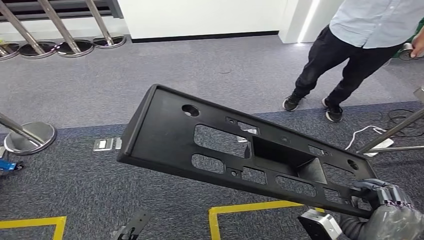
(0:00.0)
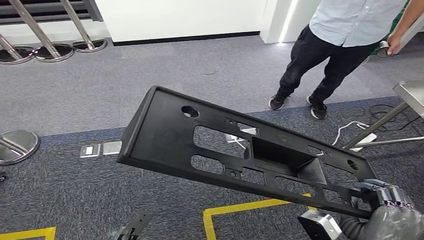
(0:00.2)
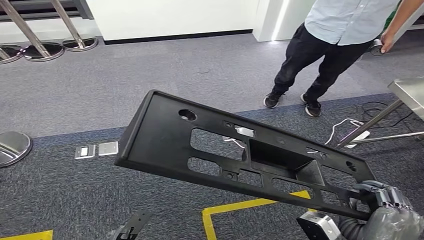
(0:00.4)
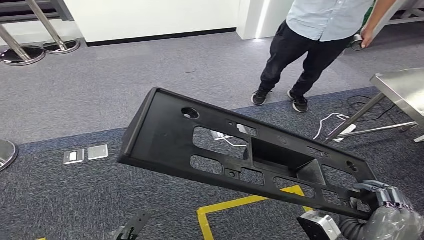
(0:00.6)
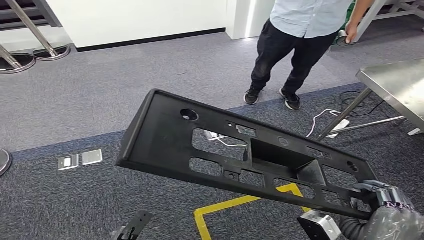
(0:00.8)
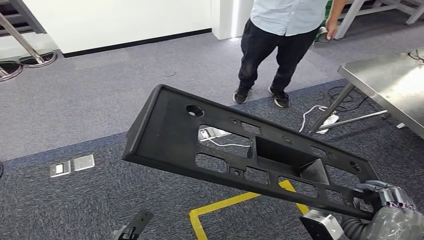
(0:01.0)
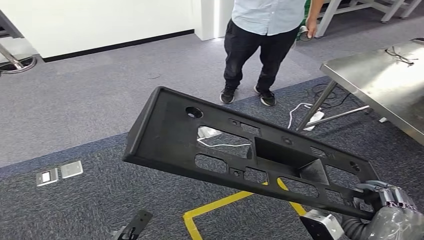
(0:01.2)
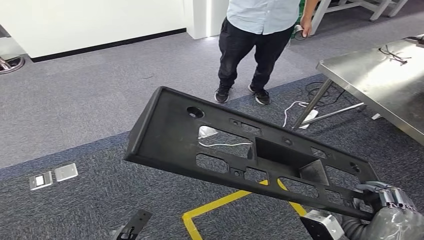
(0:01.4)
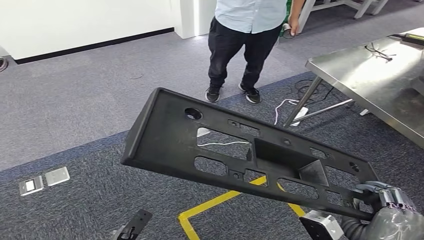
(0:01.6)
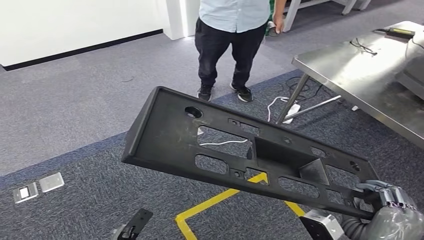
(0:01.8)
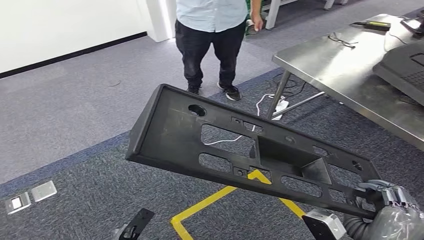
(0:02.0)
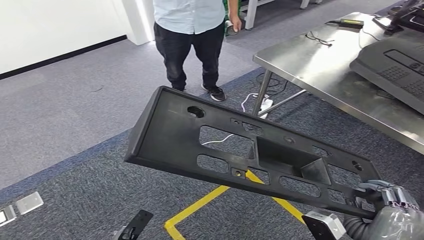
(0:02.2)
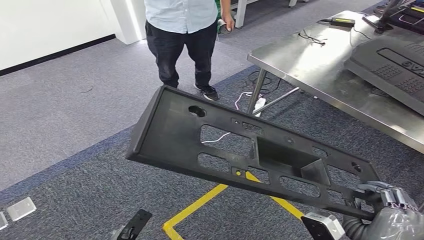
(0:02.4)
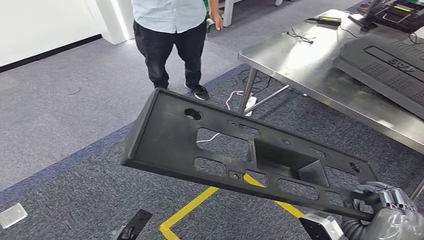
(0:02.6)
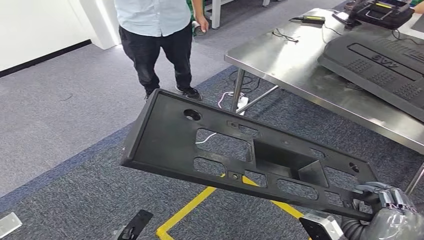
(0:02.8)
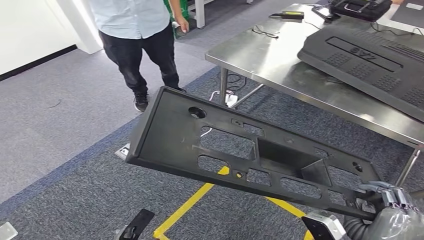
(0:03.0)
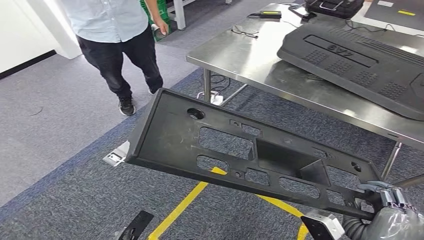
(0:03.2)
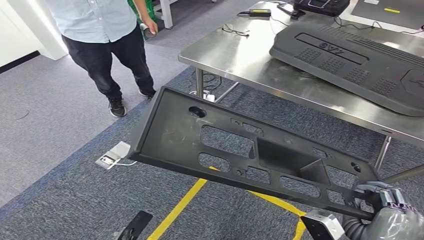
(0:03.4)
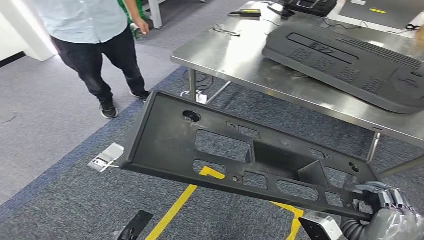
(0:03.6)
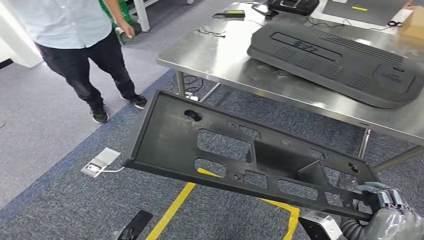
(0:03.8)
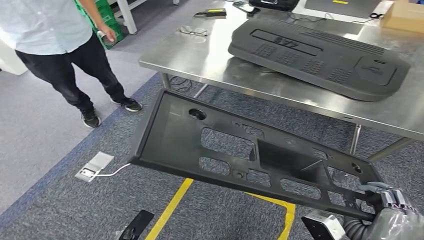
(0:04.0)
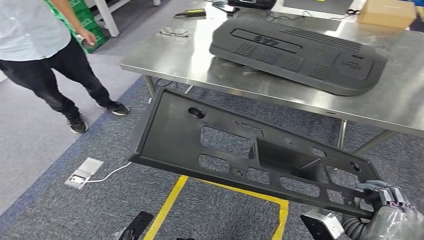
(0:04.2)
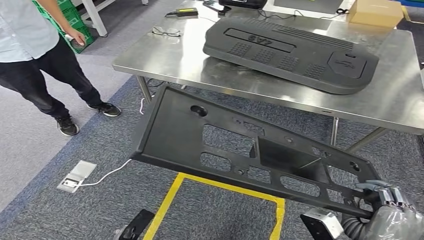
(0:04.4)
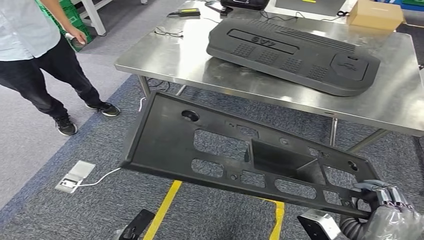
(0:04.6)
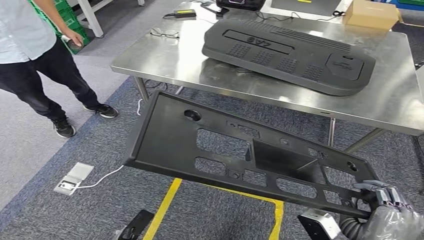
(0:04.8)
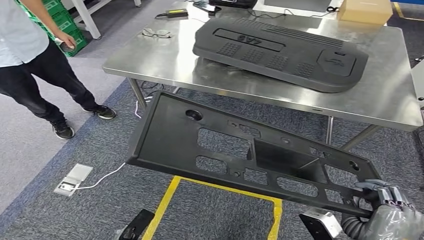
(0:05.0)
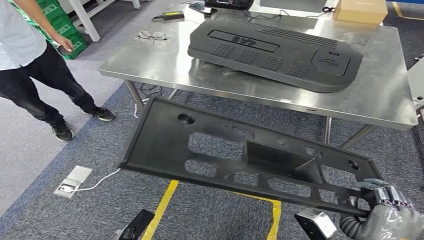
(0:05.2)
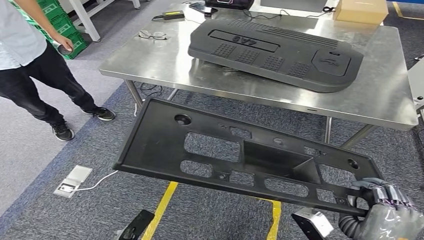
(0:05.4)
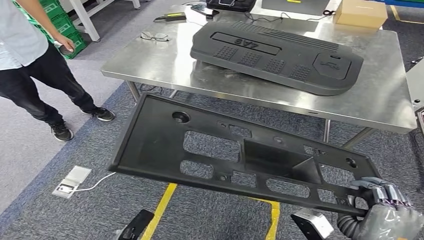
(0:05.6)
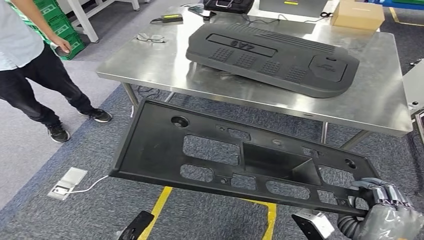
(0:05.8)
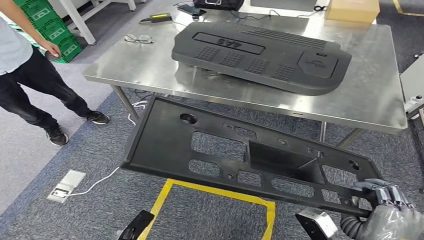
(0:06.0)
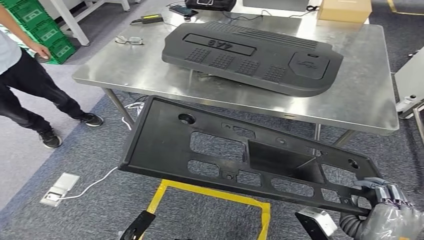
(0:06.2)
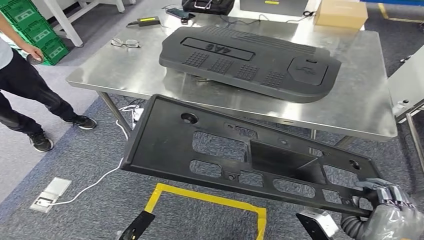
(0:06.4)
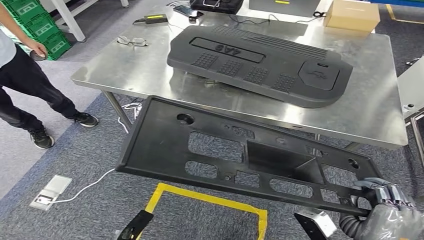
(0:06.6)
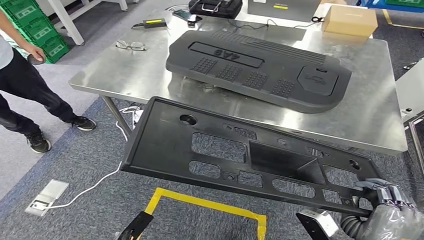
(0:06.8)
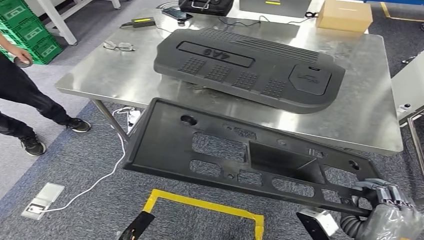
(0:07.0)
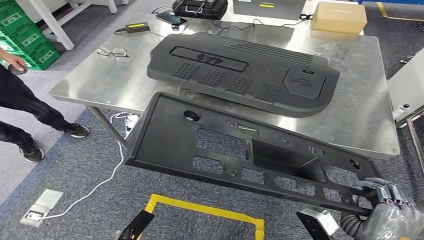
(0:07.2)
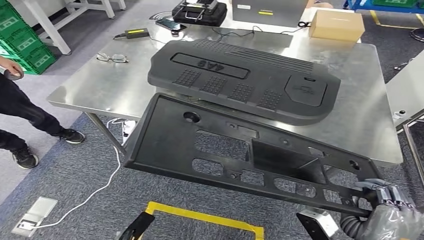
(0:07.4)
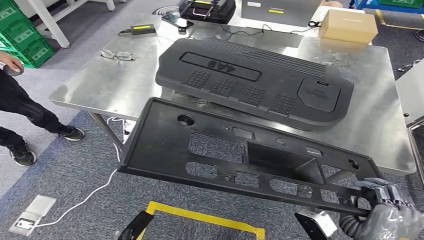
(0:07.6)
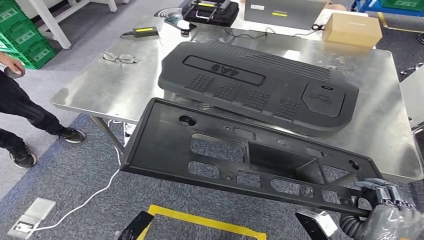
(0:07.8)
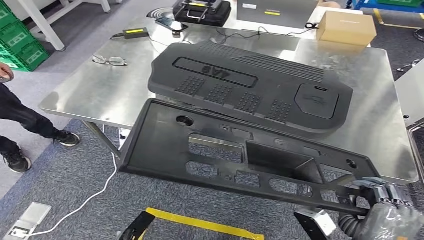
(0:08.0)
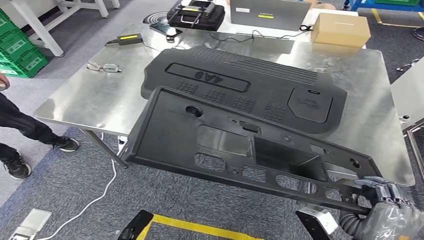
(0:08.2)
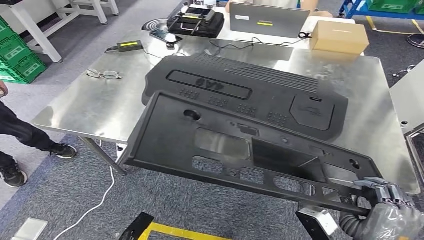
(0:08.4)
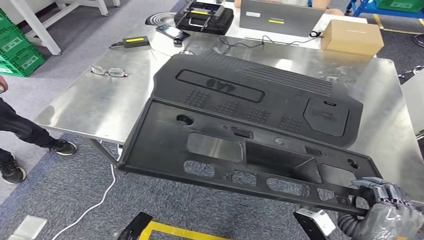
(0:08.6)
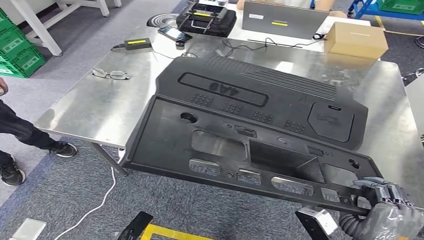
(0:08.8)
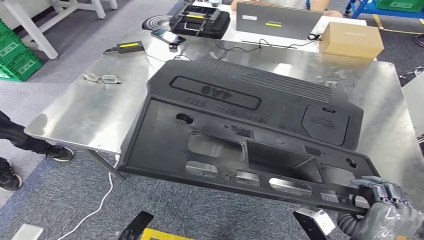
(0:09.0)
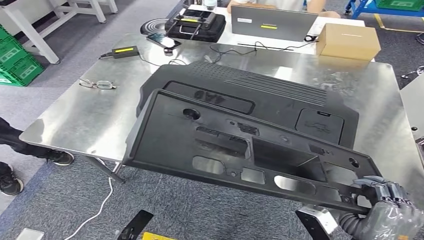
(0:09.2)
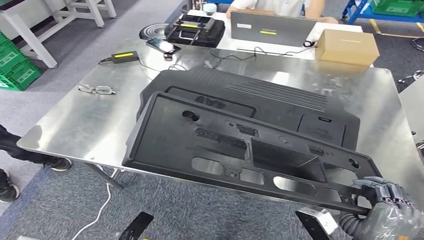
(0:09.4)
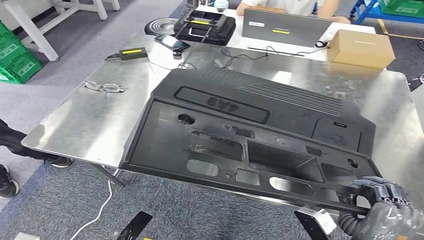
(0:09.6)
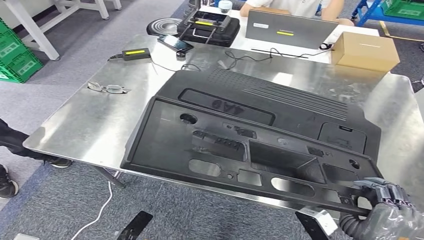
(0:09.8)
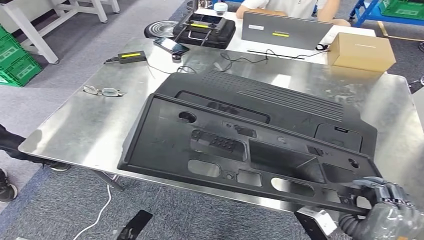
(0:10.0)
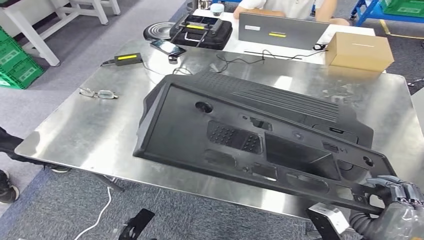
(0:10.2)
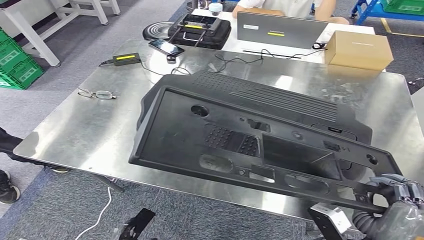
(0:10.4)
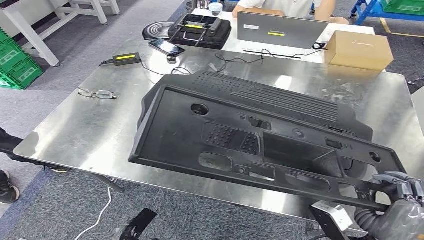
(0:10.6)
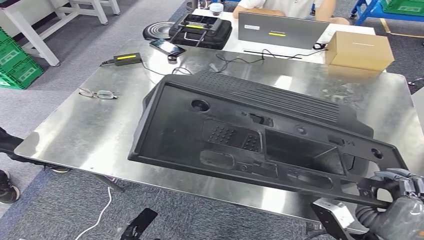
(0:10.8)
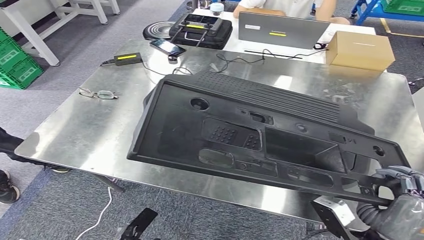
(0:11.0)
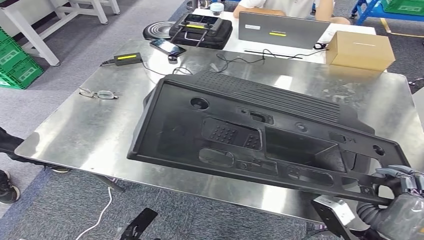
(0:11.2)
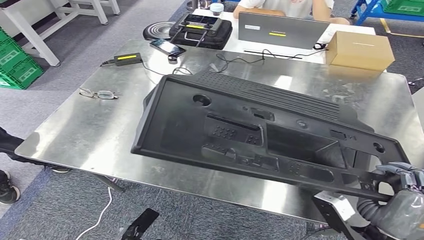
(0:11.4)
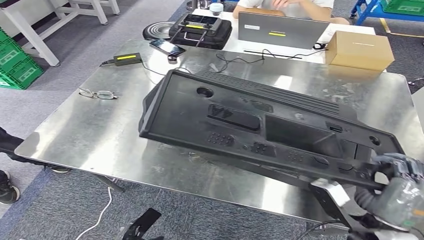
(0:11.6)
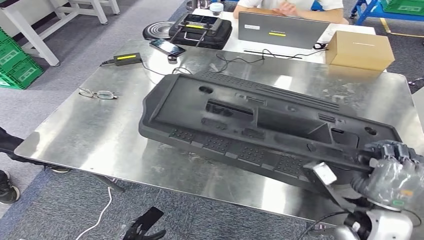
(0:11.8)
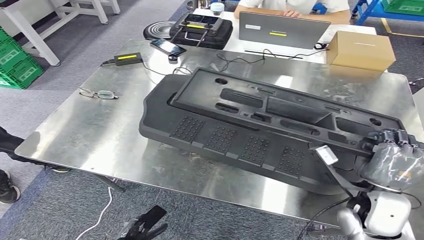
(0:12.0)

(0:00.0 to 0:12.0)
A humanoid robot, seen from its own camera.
Step, 0:00.0 - 0:09.6: Move the large material to the workbench.

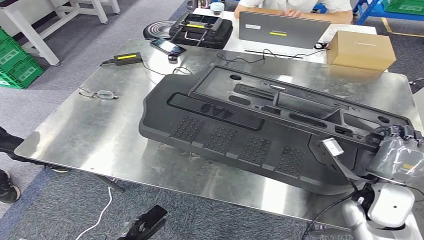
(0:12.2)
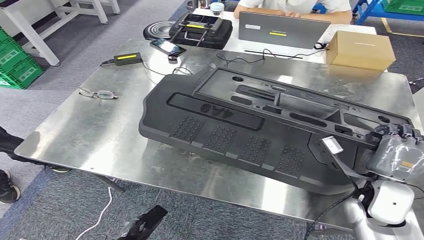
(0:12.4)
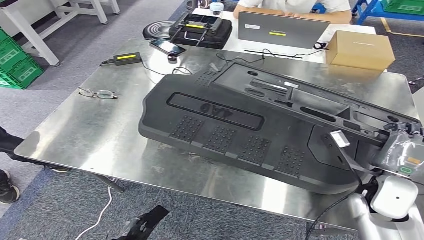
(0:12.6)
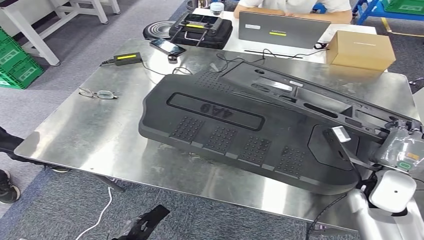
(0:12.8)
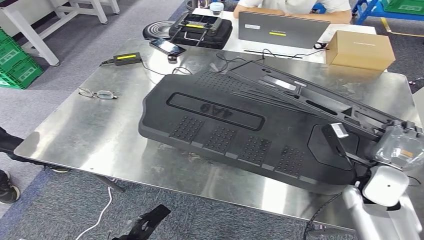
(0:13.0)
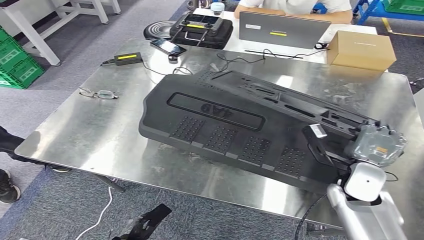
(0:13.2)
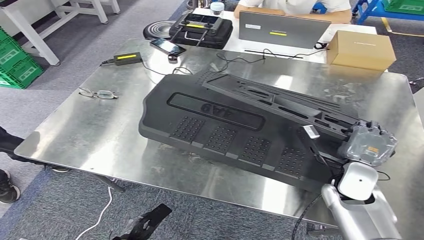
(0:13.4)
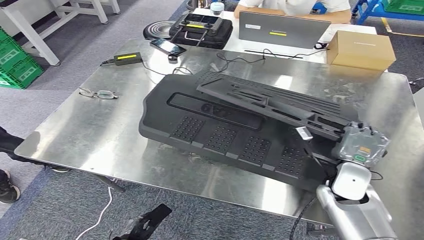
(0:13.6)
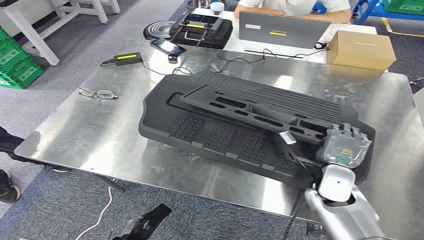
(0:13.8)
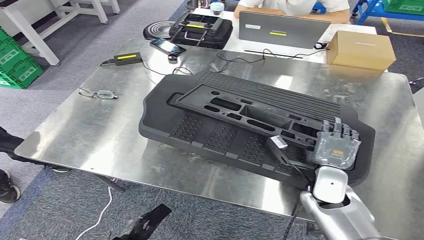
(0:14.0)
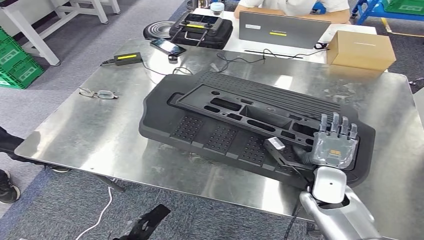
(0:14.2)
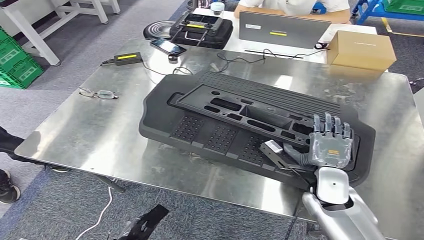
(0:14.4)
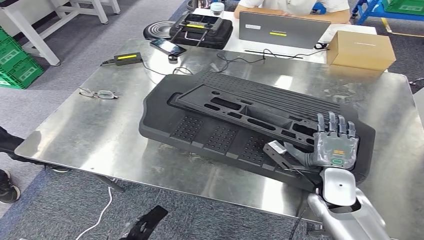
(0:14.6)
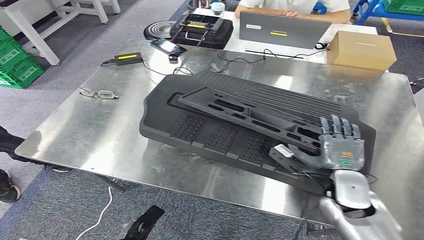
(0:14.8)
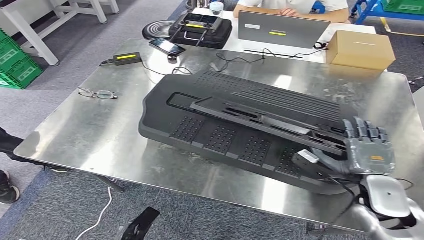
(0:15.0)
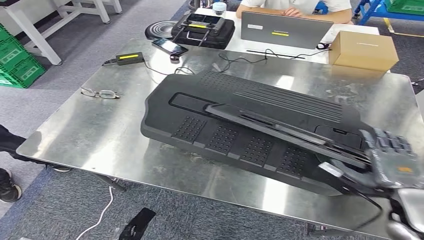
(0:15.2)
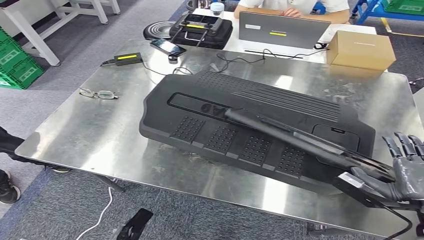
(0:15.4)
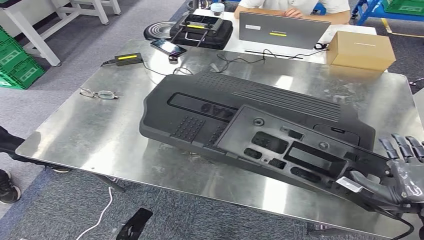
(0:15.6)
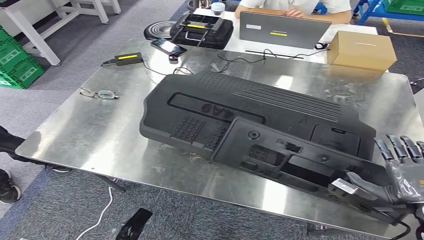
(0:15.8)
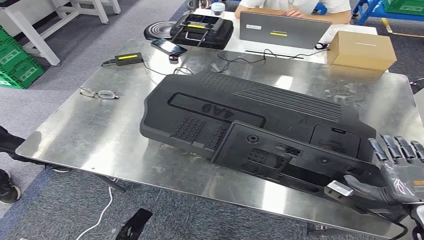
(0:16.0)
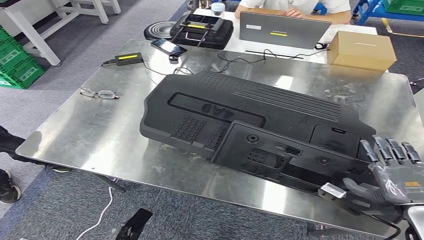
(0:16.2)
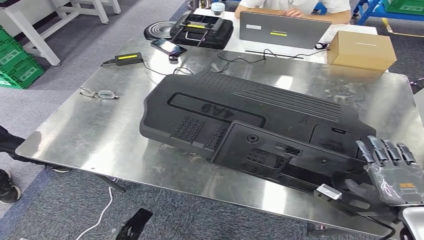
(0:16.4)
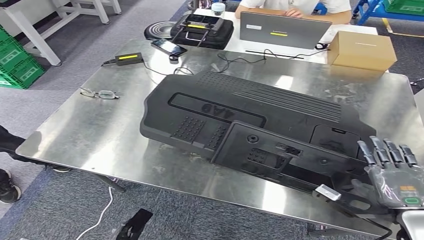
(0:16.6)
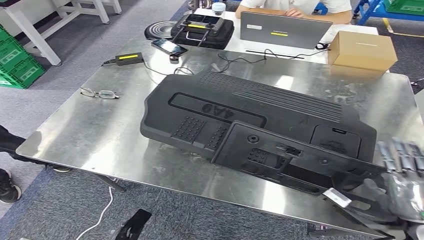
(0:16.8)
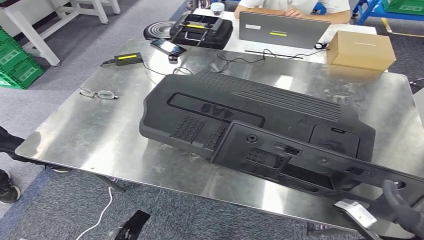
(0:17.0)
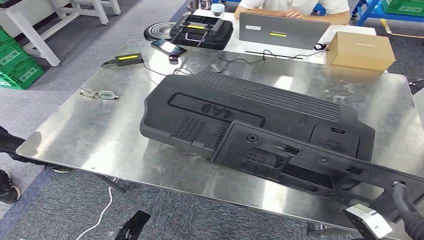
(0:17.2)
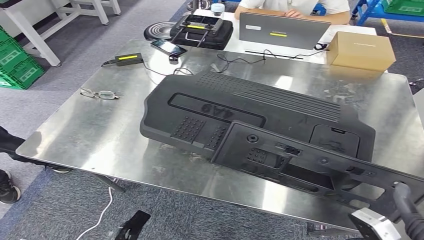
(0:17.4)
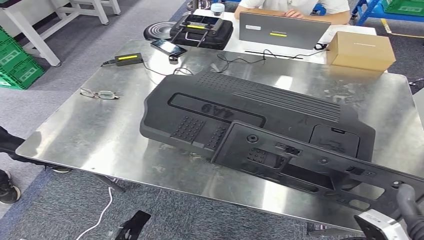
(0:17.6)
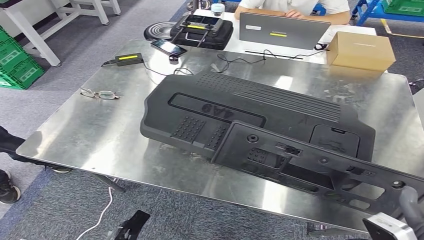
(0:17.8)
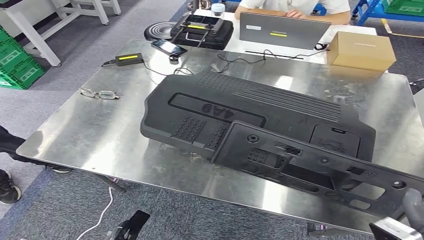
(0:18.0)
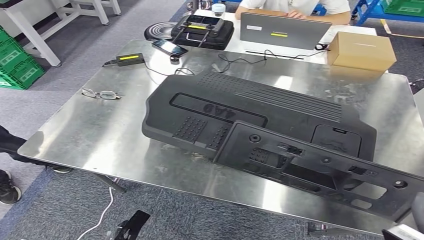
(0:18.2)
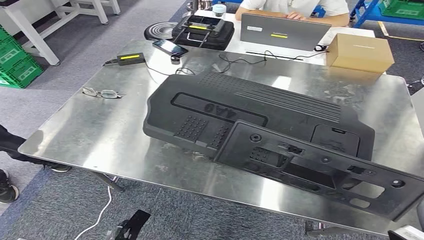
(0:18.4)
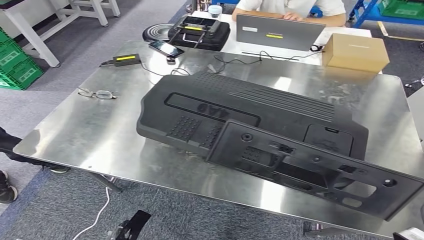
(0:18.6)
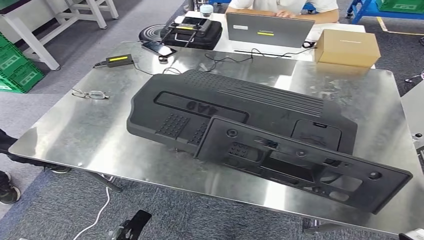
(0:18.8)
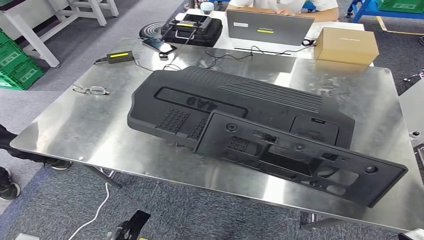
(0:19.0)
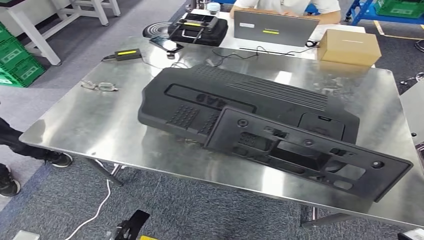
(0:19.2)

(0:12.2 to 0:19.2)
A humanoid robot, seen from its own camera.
Step, 0:12.2 - 0:18.0: Insert the large material into the corresponding slot on the workbench.
0:12.2 - 0:13.6: The right hand ends up approximately 5 cm from where it was.
0:13.6 - 0:15.0: The right hand is displaced to the right by approximately 5 cm.
0:15.0 - 0:16.4: The right hand shifts roughly 10 cm backward and to the right.
0:16.4 - 0:17.8: The right hand goes some 10 cm backward and to the left.
